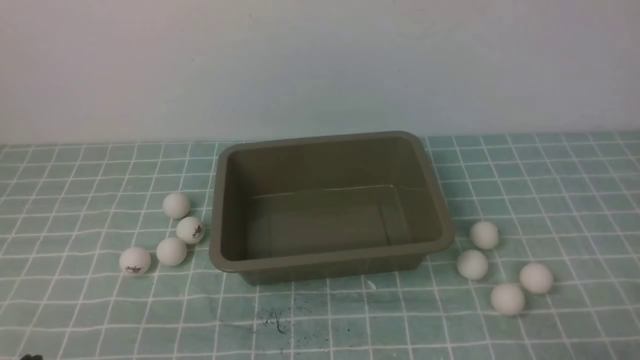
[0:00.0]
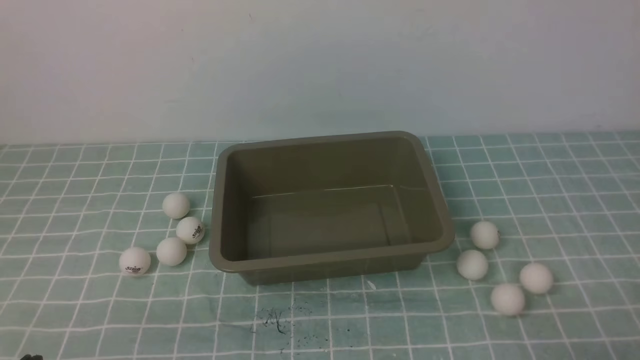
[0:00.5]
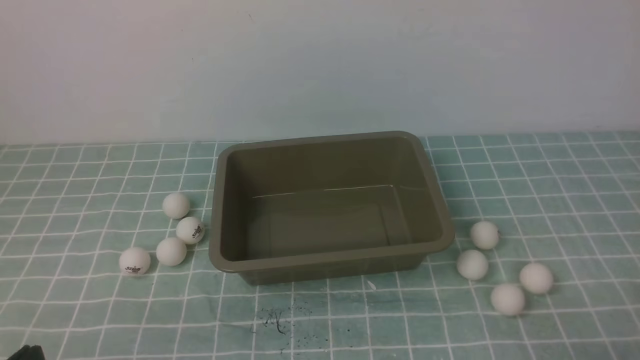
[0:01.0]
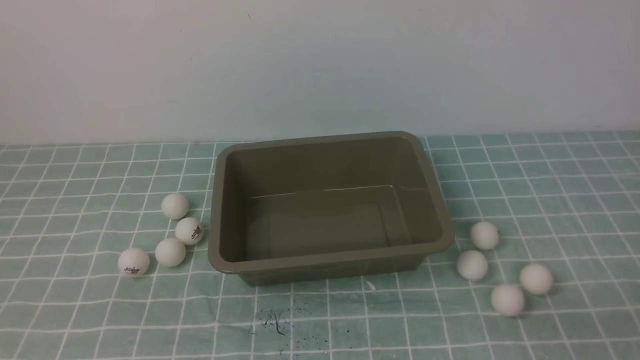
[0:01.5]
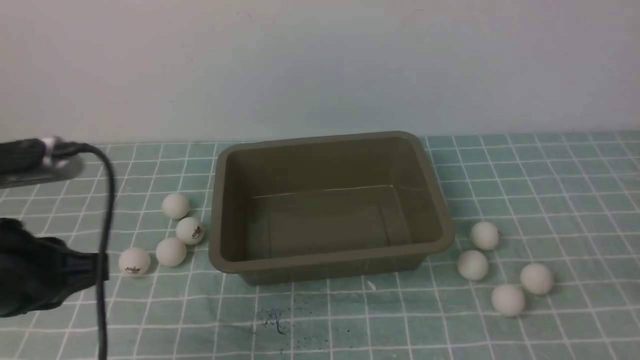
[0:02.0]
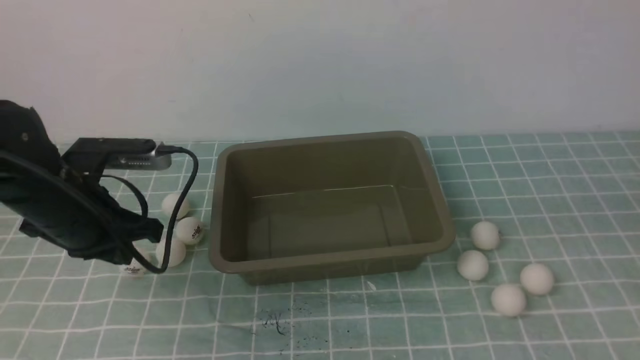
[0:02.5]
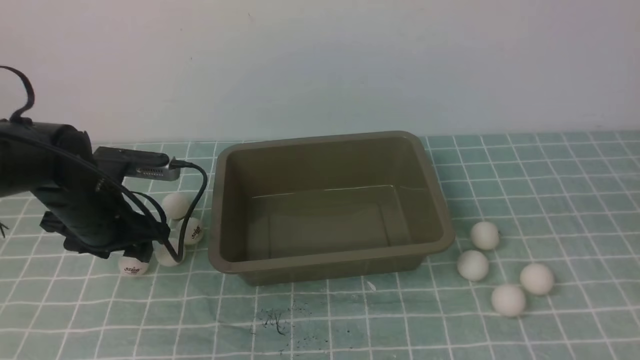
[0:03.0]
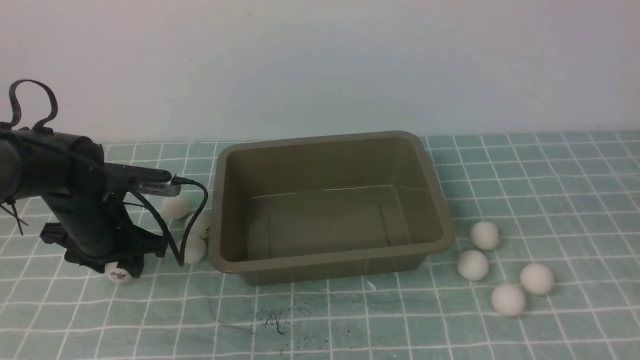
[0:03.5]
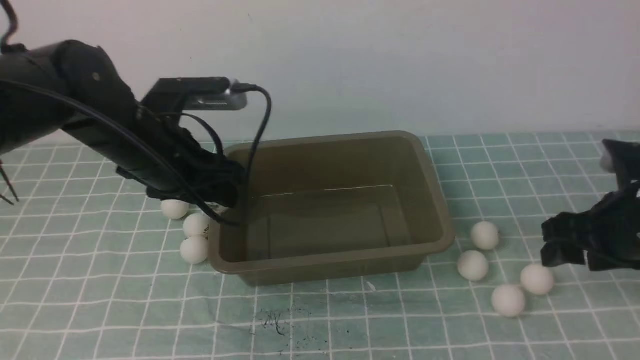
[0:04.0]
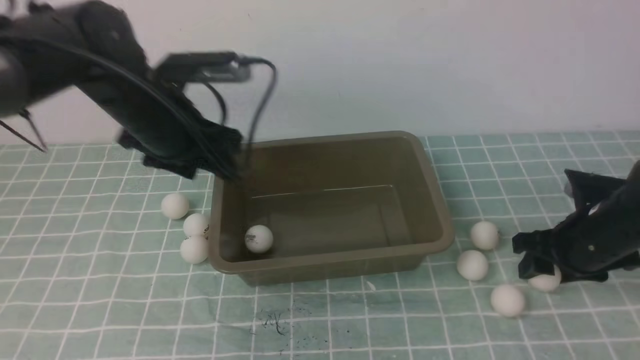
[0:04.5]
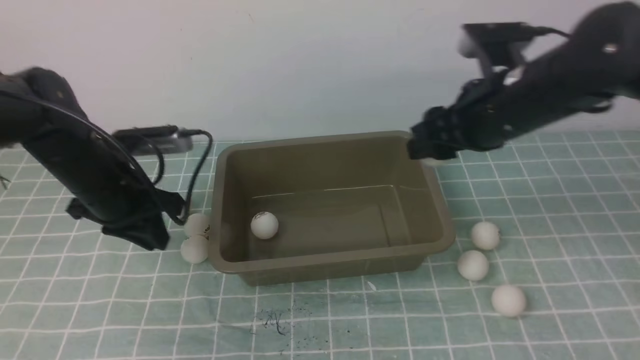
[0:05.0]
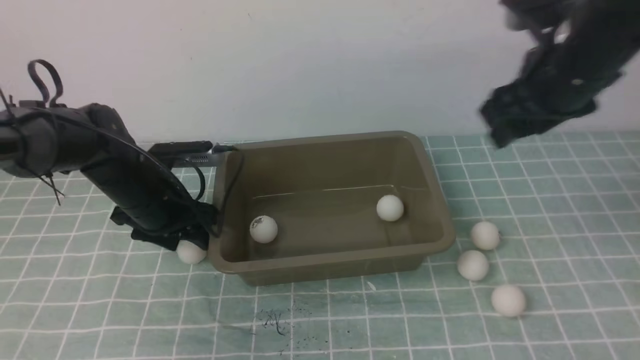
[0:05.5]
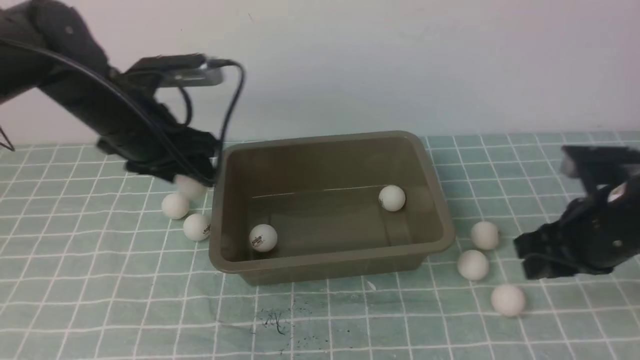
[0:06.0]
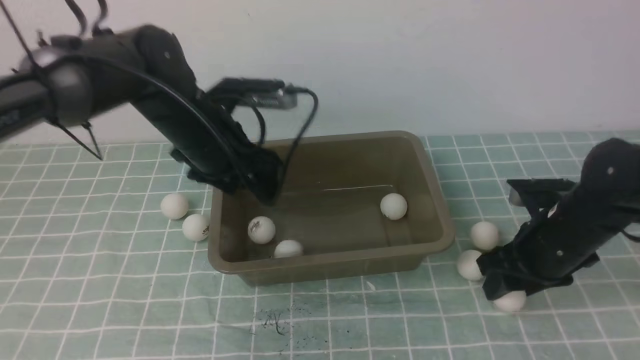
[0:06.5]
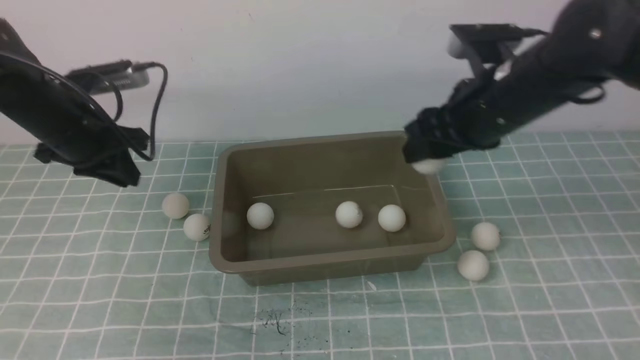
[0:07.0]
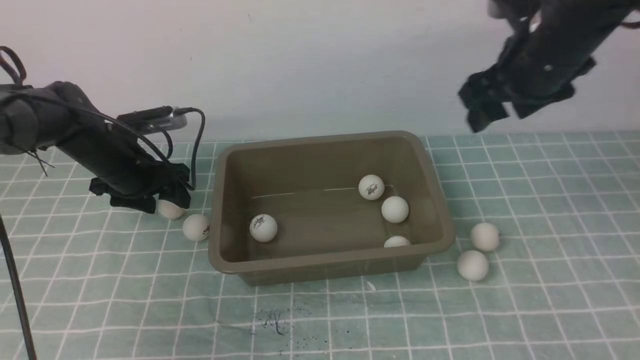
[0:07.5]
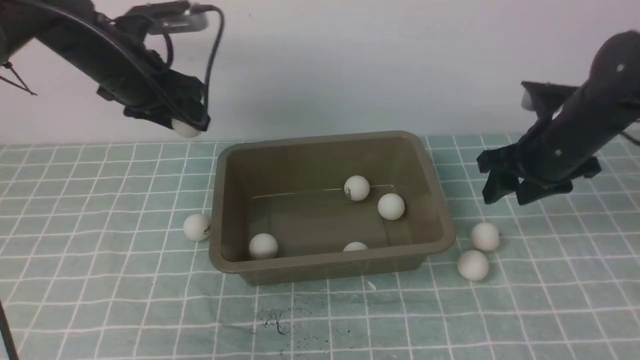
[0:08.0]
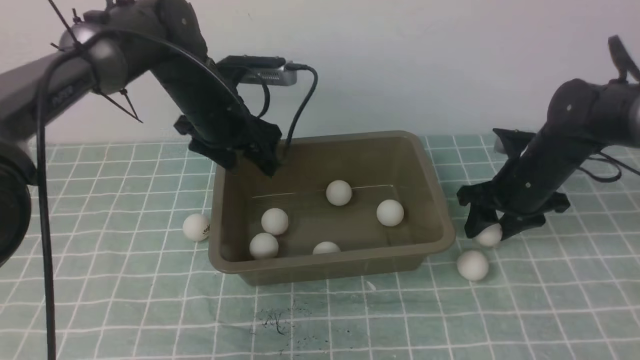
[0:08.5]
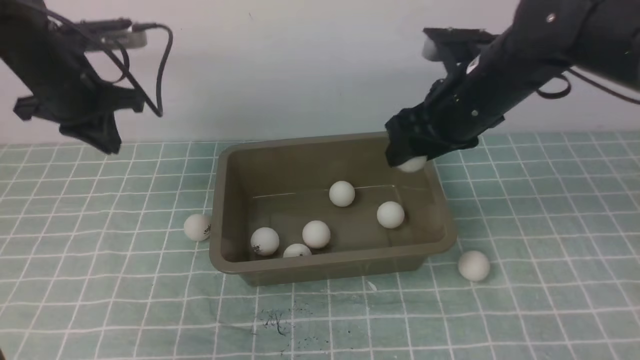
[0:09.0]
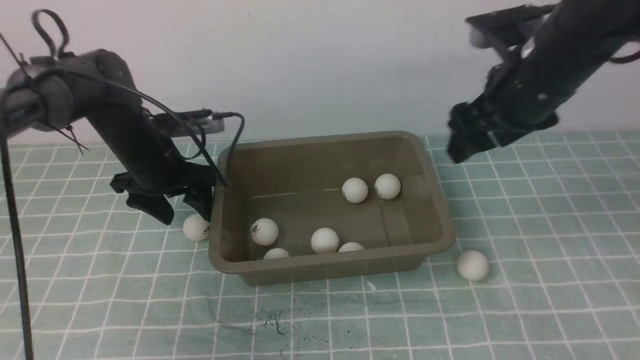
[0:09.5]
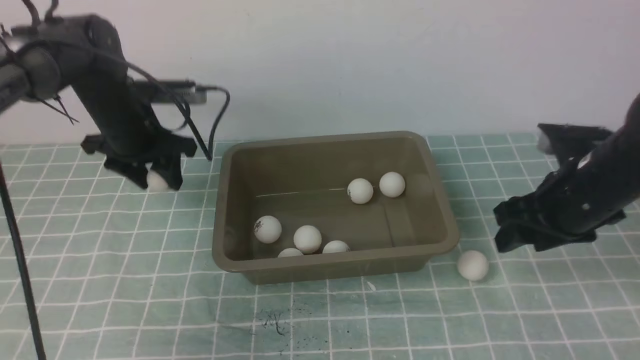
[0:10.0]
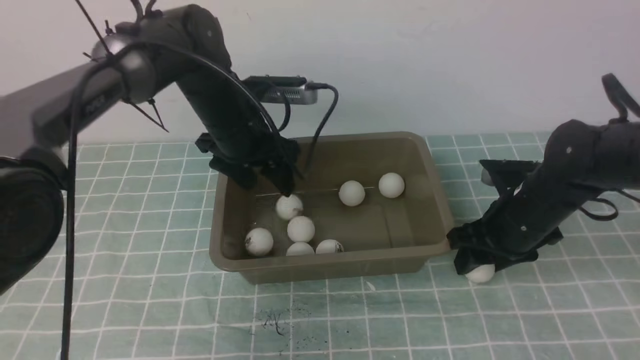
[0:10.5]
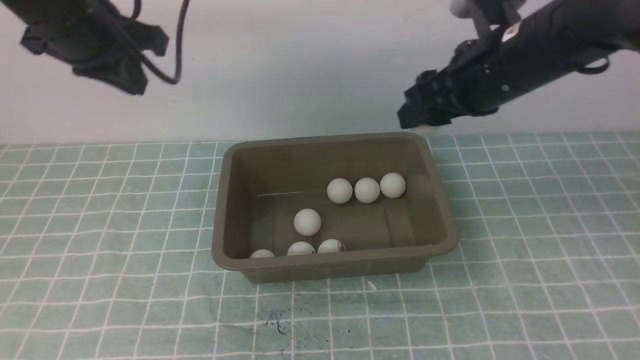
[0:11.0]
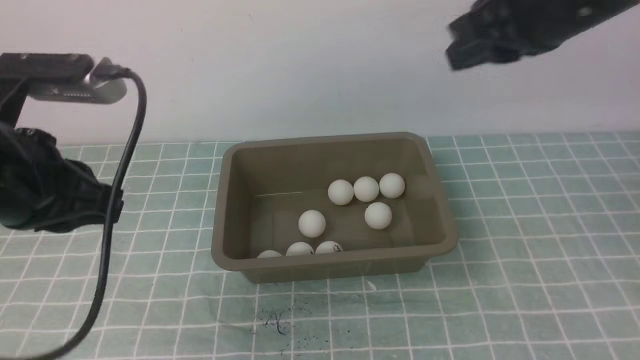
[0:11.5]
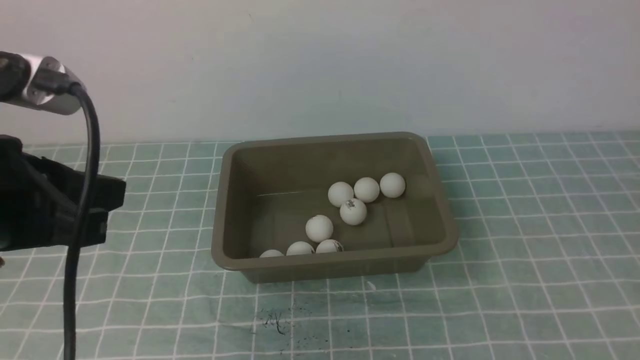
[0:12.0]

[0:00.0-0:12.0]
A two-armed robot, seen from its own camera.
Step, 0:00.0 to 0:03.5: use the left arm to clamp the table tennis ball closest to it.
Step, 0:07.5 to 0:08.0: use the left arm to clamp the table tennis ball closest to it.
Step, 0:09.5 to 0:10.0: use the left arm to clamp the table tennis ball closest to it.
Step, 0:11.0 to 0:11.5: use the right arm to put the table tennis ball into the box.
0:00.0 to 0:02.0: The left gripper moves forward and upward, about 15 cm.
0:02.0 to 0:04.0: The right gripper travels forward by approximately 20 cm, and opens up. Meanwhile the left gripper shifts some 20 cm forward and to the right, and opens its fingers.
0:04.0 to 0:06.0: The left gripper moves about 10 cm downward and comes back, and closes, then opens again, while the right gripper travels upward and back again, about 10 cm each way, and closes up.
0:06.0 to 0:08.0: The left gripper goes roughly 5 cm forward, travels to the left and back again, approximately 10 cm each way, and closes and opens again, while the right gripper moves up and down over some 15 cm, changing direction 2 times.
0:08.0 to 0:10.0: The left gripper moves left and right over roughly 10 cm, changing direction 2 times, and closes, then reopens. Meanwhile the right gripper travels backward by about 5 cm, and goes upward and returns, some 10 cm each way.
0:10.0 to 0:12.0: Both grippers travel together backward and upward, roughly 30 cm. The right gripper closes its fingers, while the left gripper closes its fingers.

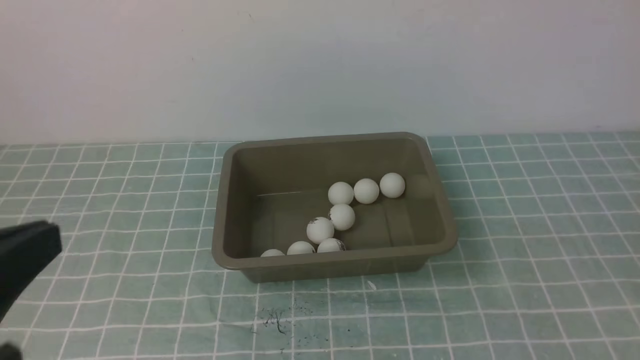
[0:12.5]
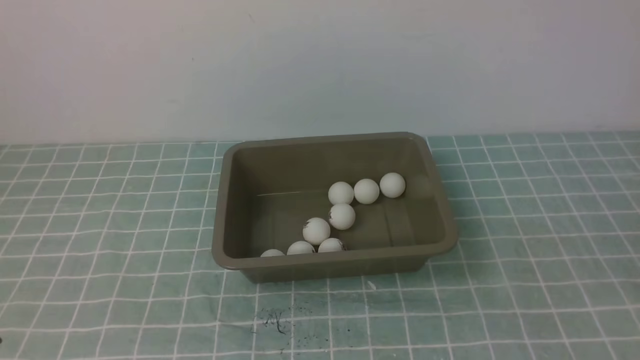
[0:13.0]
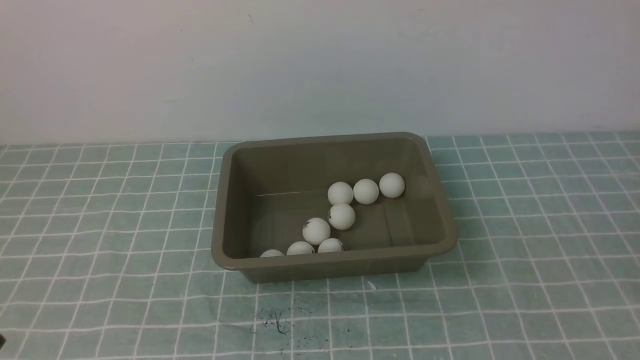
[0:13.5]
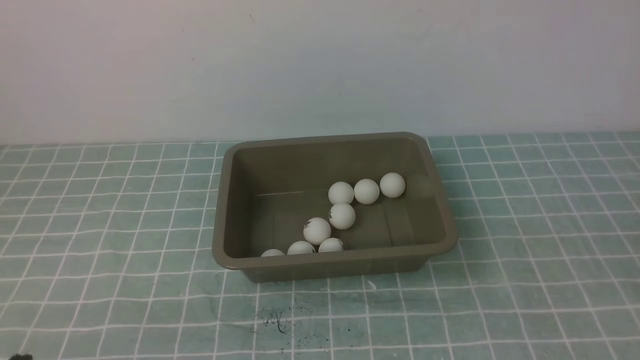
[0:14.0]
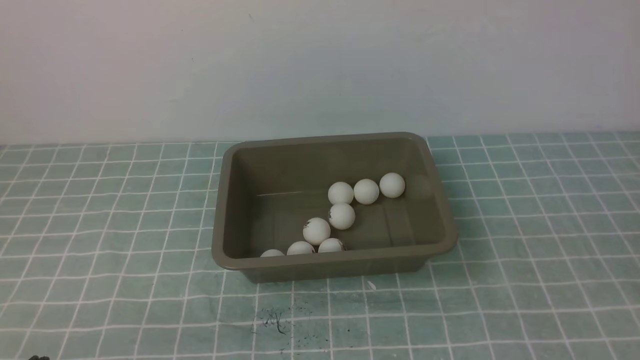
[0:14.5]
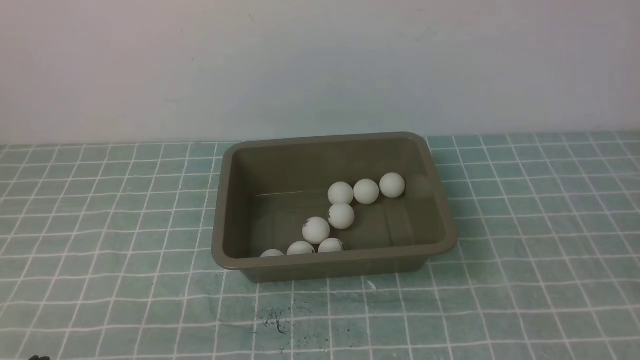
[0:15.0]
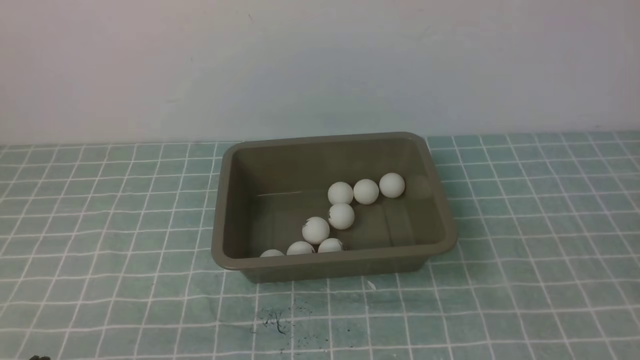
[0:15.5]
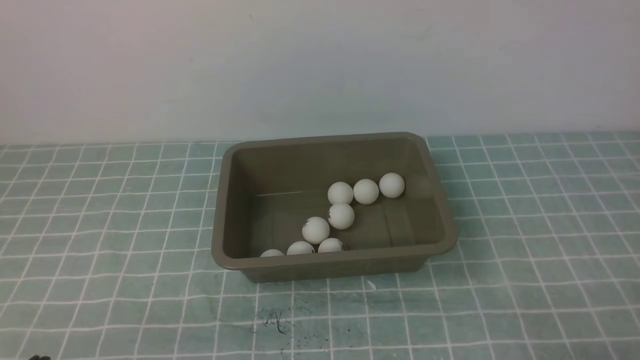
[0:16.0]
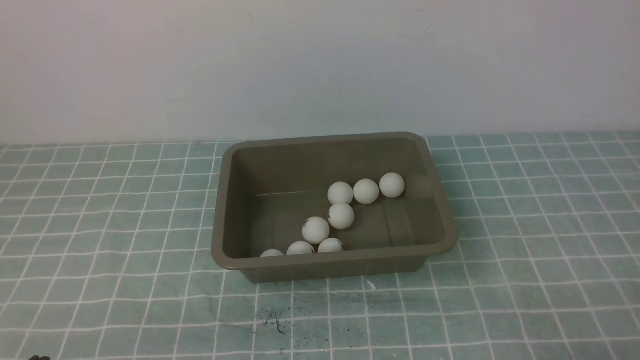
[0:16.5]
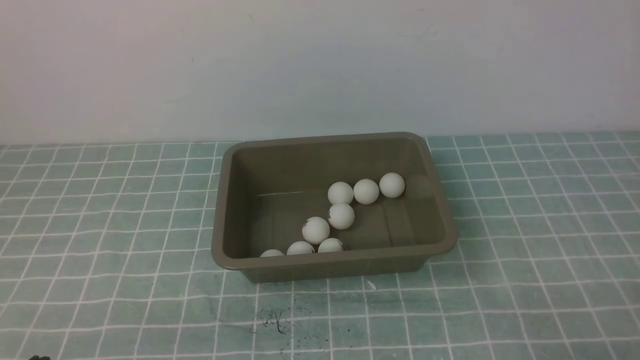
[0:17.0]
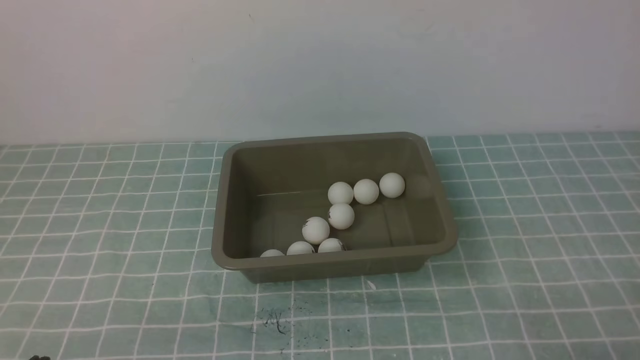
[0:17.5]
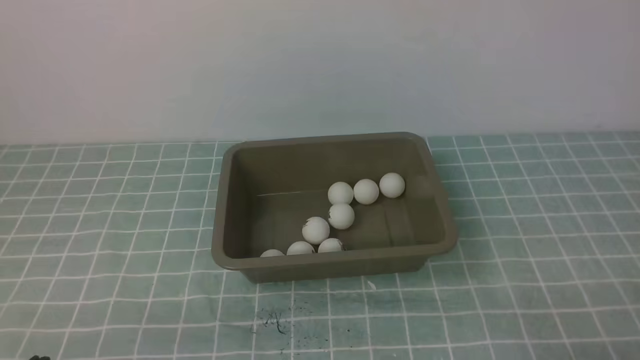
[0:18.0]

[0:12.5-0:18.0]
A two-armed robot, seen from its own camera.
0:12.5 to 0:14.5: The left gripper is displaced downward by approximately 15 cm.
0:16.0 to 0:18.0: Both grippers stay put.
